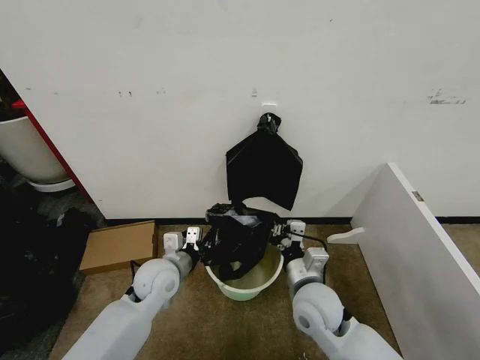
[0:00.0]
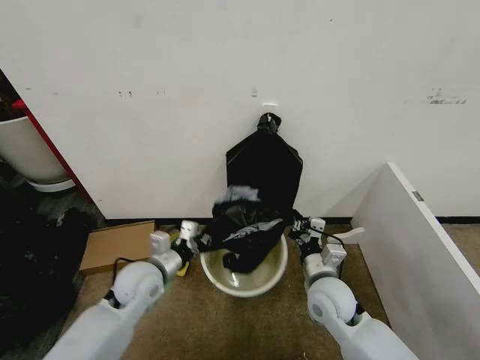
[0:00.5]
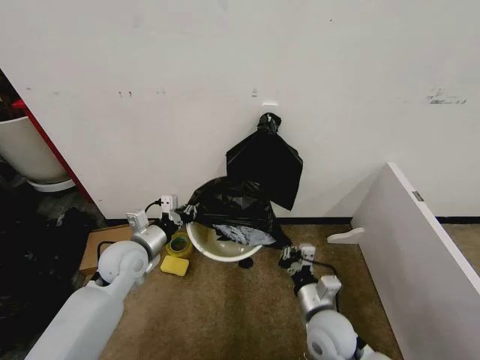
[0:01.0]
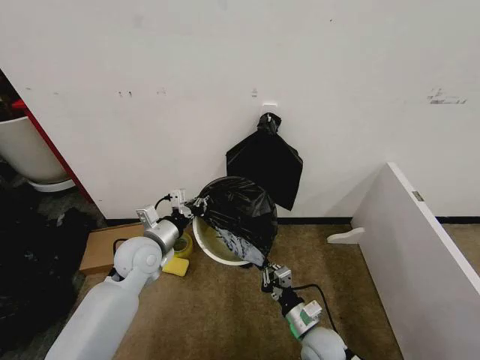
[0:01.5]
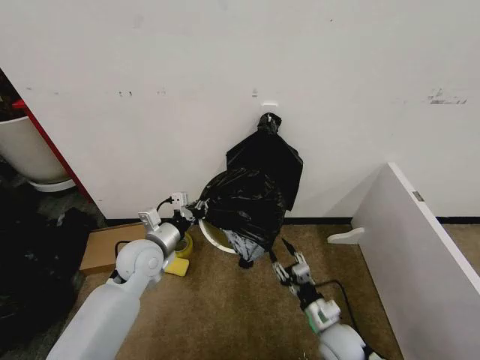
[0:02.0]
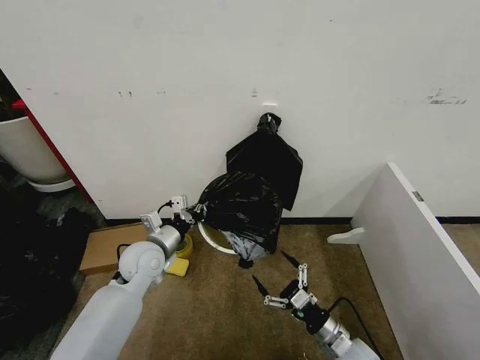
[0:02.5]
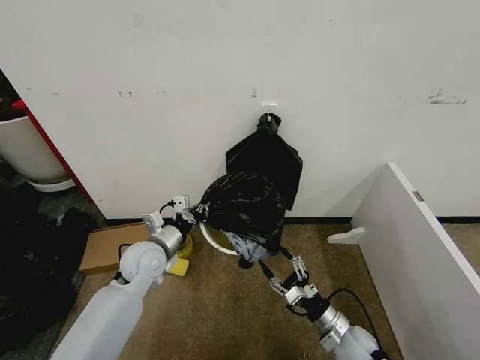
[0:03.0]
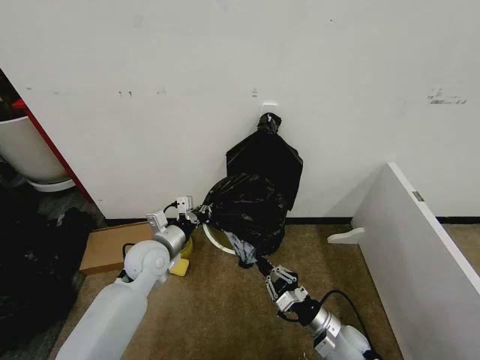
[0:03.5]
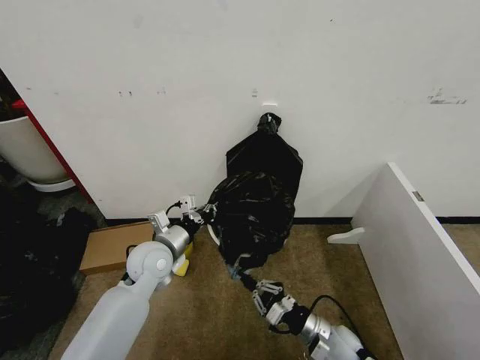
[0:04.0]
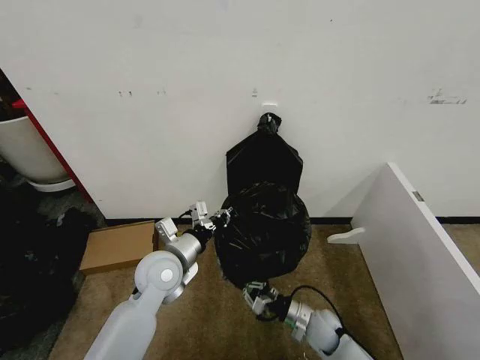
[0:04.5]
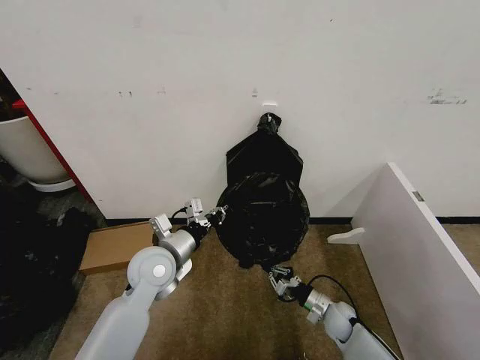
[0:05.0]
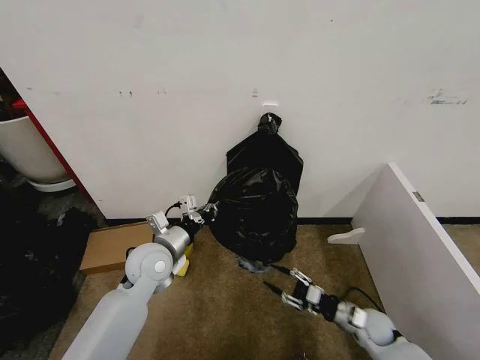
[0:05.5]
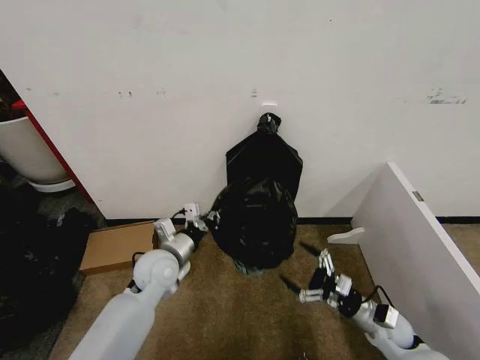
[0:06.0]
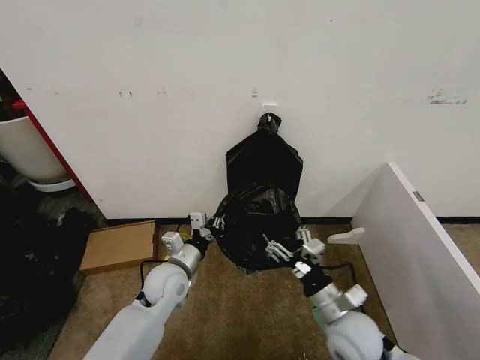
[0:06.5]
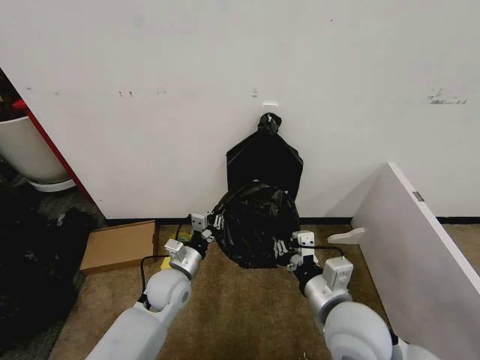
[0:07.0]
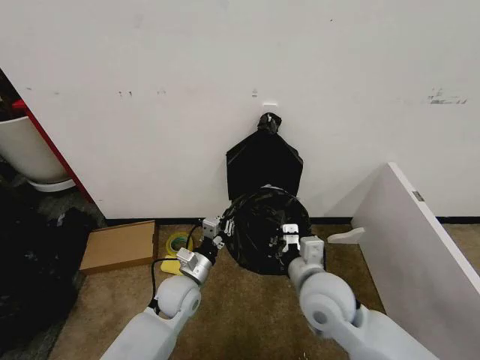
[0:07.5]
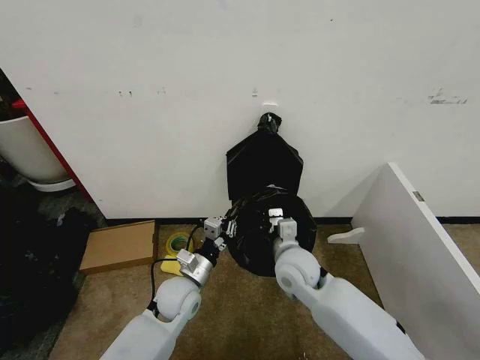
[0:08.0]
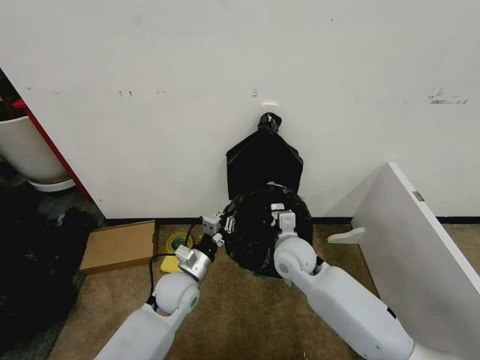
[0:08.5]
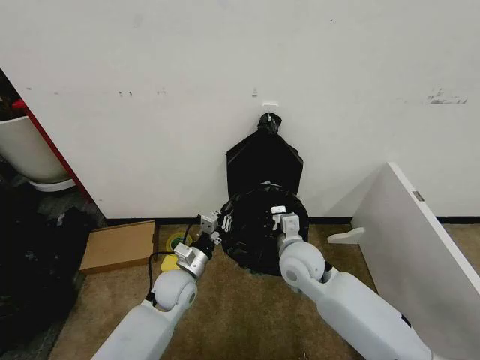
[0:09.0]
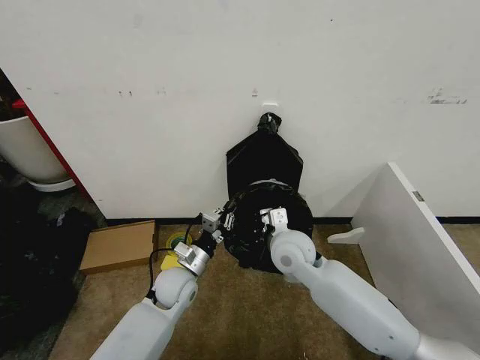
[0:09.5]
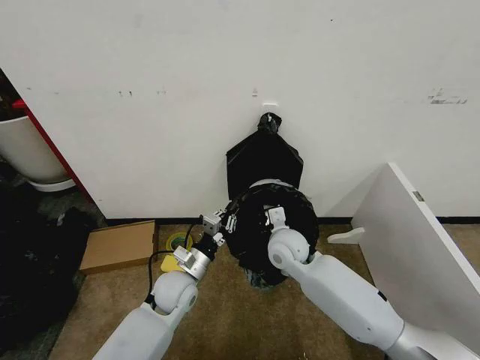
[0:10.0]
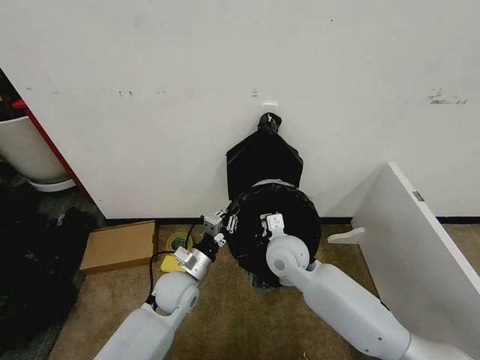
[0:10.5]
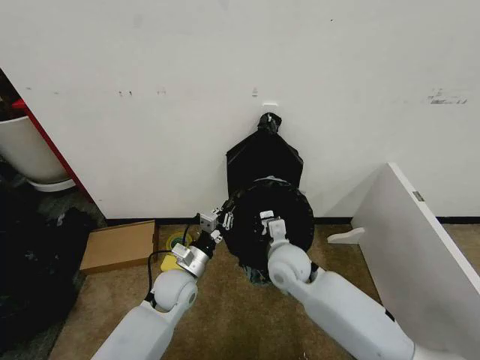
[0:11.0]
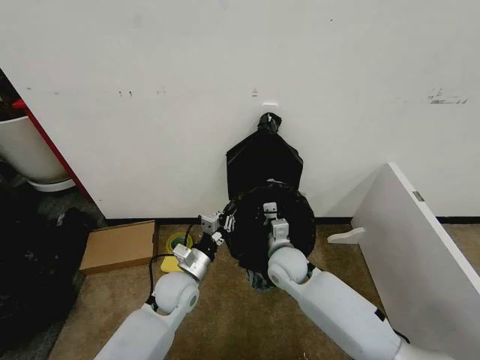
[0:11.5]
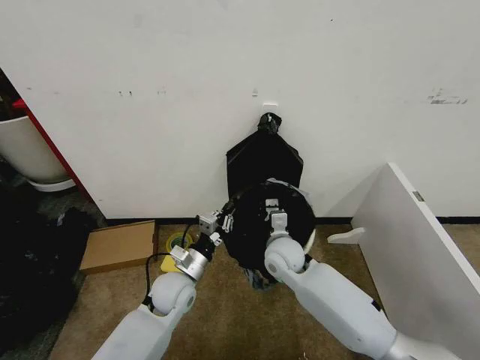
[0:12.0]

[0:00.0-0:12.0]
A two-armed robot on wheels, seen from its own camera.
Task of the whole recording: Place the garbage bag over the trash bin.
0:00.0 to 0:02.0: The right gripper shifts some 15 cm downward and to the right, and opens up. Meanwhile the left gripper changes place by approximately 5 cm.
0:02.0 to 0:04.0: The right gripper closes its fingers.
0:04.0 to 0:06.0: The right gripper shifts approximately 10 cm to the right, and opens up.
0:06.0 to 0:08.0: The right gripper shifts some 25 cm to the left and upward, and closes. Meanwhile the left gripper travels downward by some 5 cm.
0:08.0 to 0:10.0: The right gripper heads forward, covering about 5 cm.

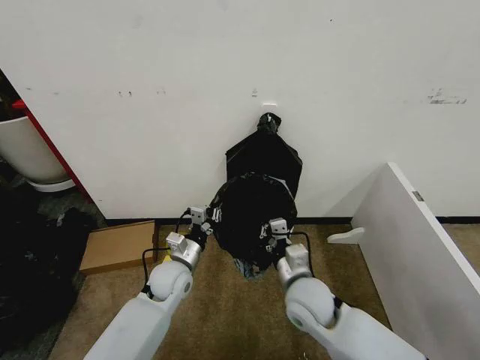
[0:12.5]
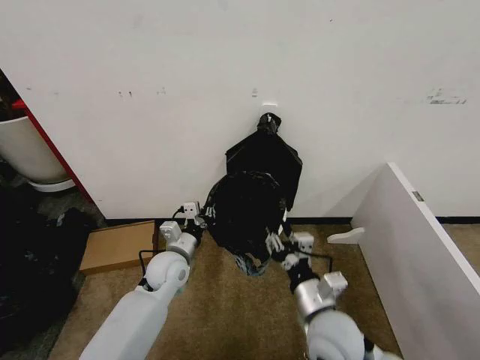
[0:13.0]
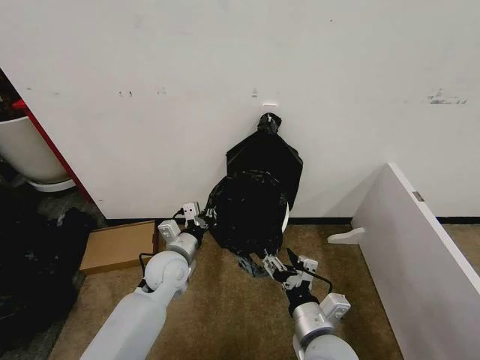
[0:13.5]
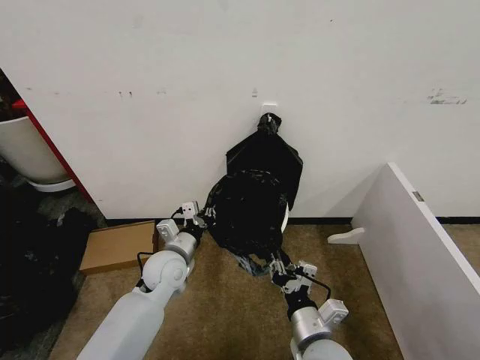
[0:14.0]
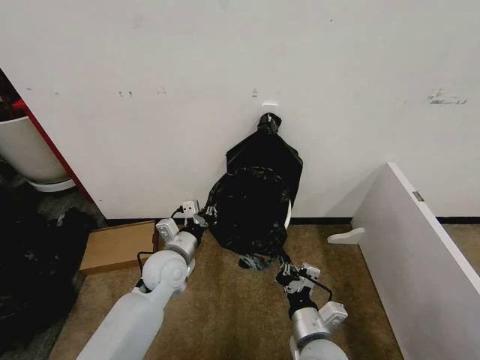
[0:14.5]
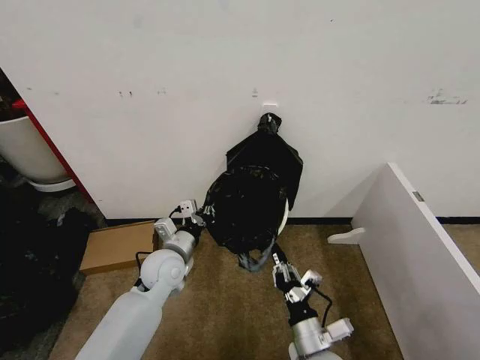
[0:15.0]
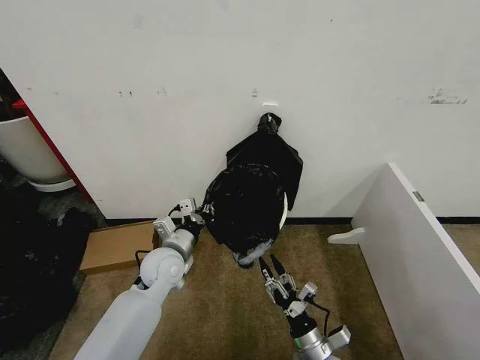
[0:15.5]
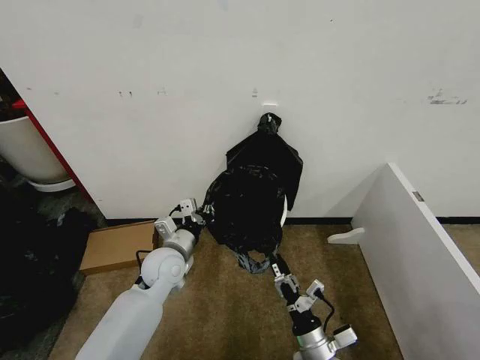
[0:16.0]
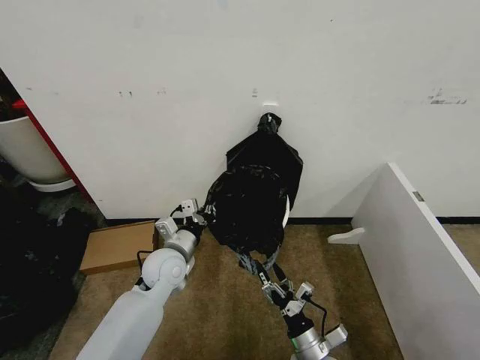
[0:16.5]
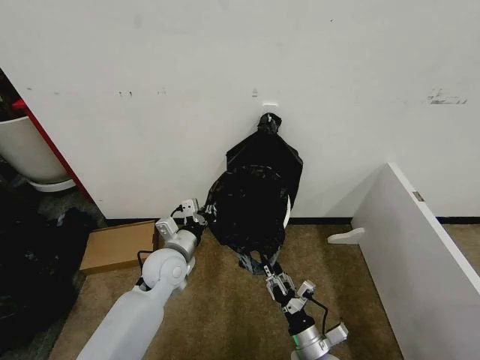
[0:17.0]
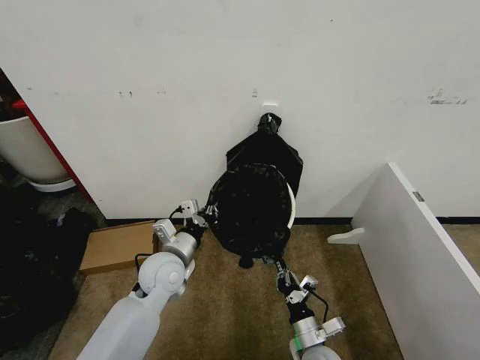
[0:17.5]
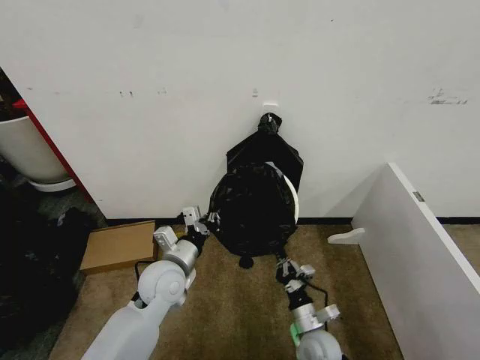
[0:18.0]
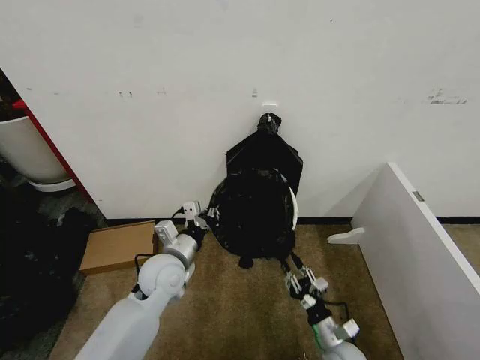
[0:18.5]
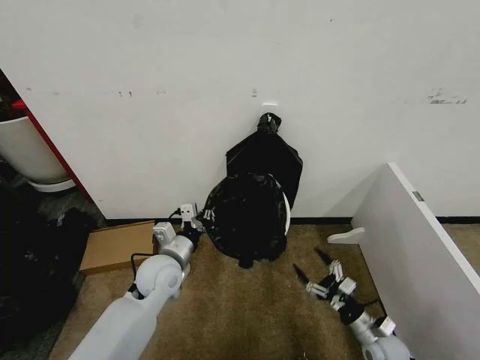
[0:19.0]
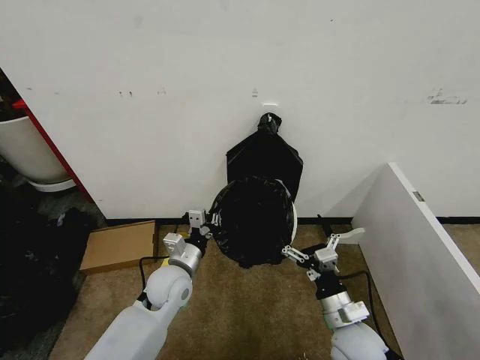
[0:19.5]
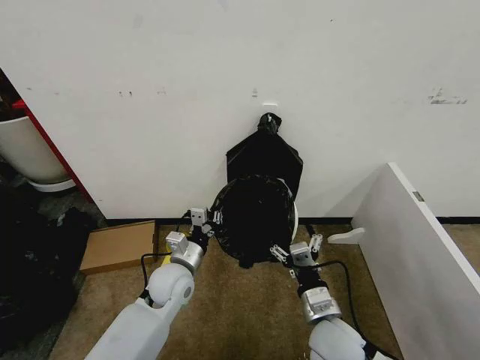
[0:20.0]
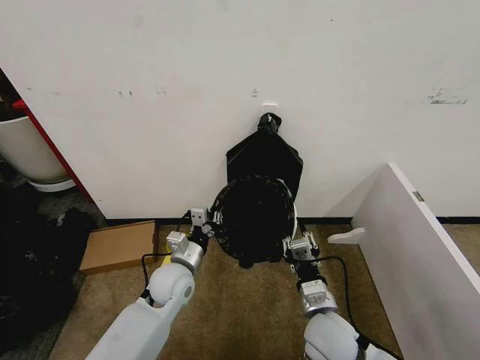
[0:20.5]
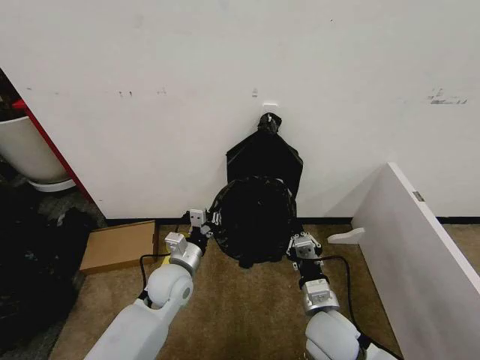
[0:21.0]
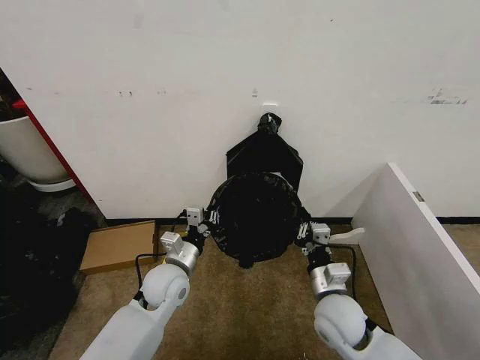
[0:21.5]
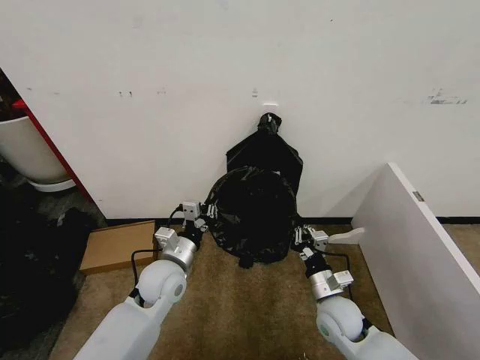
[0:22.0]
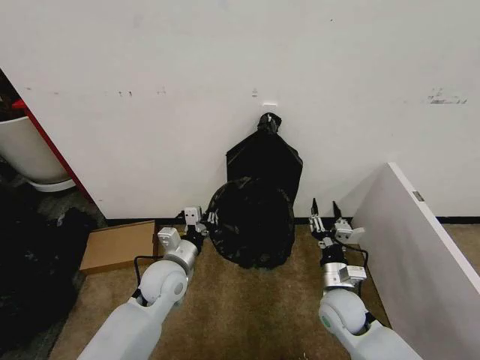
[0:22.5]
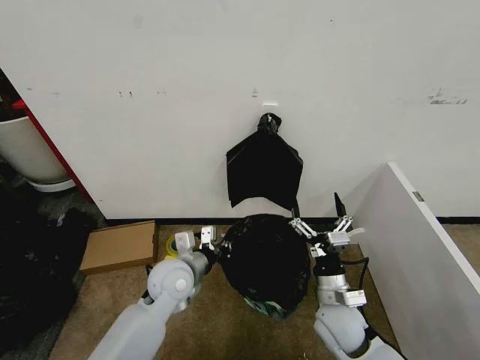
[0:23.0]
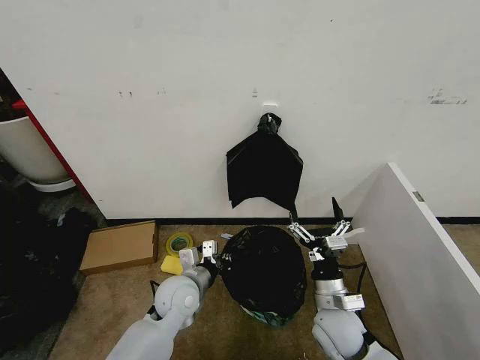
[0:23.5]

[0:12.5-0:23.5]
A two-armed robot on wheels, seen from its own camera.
Task of the whole recording: Place the garbage bag over the trash bin.
0:12.5 to 0:14.5: The right gripper heads backward, covering some 10 cm, and opens, then closes once more. Meanwhile the left gripper shifts approximately 5 cm upward.
0:14.5 to 0:16.0: The right gripper goes roughly 5 cm downward, and opens its fingers.
0:16.0 to 0:18.0: The right gripper shifts roughly 10 cm forward and downward, and closes its fingers.
0:18.0 to 0:20.0: The right gripper is displaced upward by roughly 15 cm, and opens its fingers.
0:20.0 to 0:21.5: The right gripper moves forward, about 5 cm, and closes.
0:21.5 to 0:23.5: The right gripper opens.

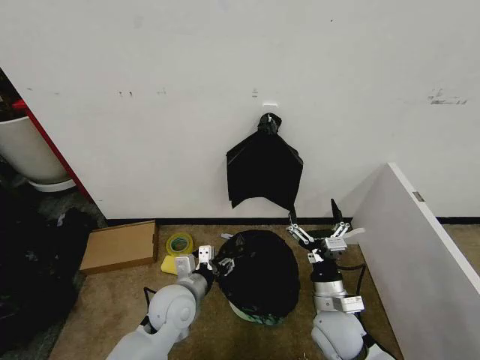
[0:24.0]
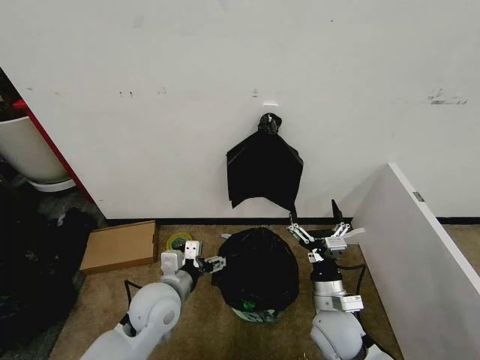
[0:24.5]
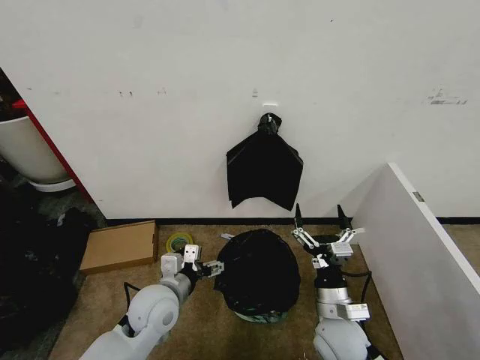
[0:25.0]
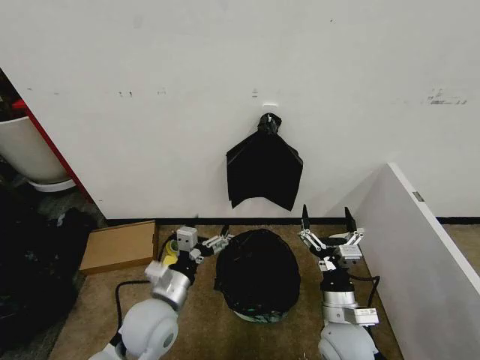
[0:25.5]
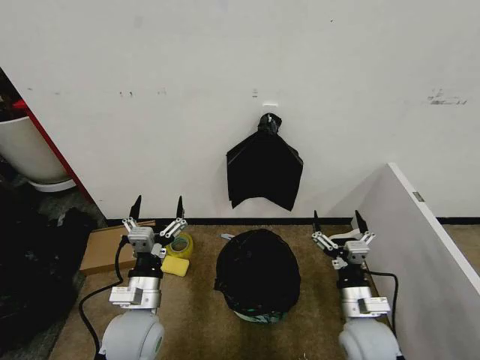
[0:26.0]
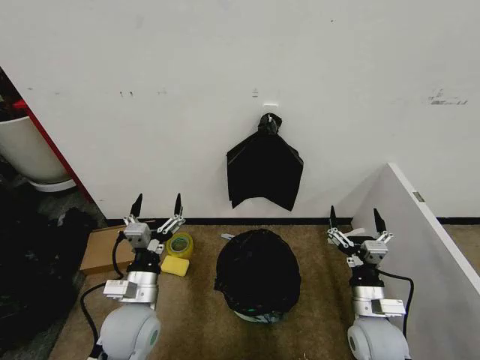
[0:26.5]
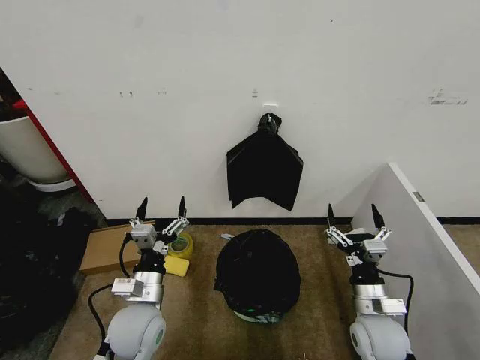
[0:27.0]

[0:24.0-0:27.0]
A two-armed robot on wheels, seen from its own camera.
Task of the whole recording: Place the garbage bag over the trash bin.
0:24.0 to 0:25.5: The left gripper shifts by some 5 cm, and opens its fingers.
0:25.5 to 0:27.0: The right gripper heads to the right, covering roughly 10 cm.
